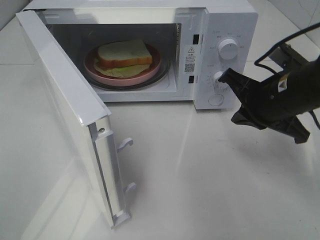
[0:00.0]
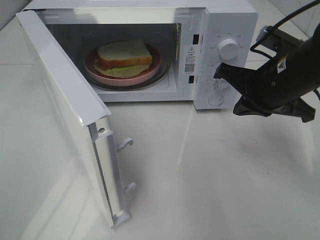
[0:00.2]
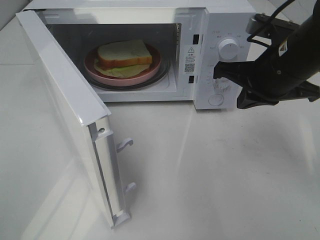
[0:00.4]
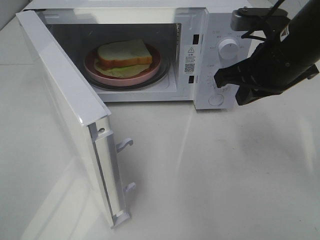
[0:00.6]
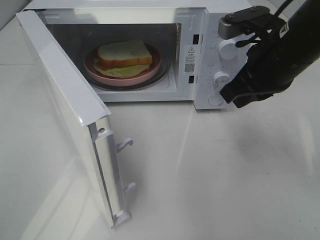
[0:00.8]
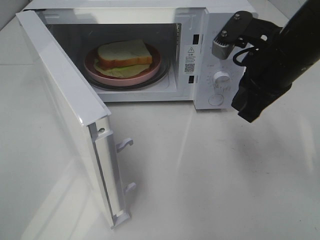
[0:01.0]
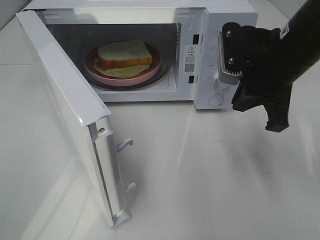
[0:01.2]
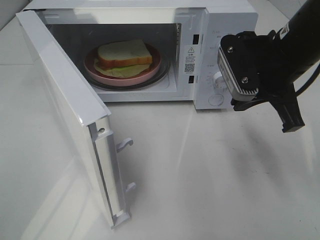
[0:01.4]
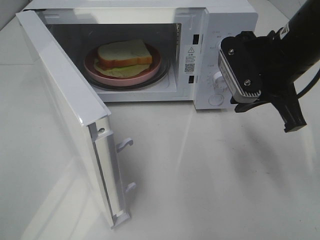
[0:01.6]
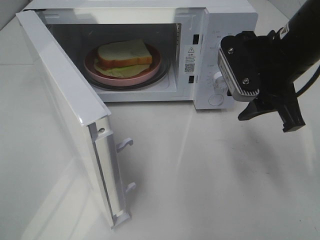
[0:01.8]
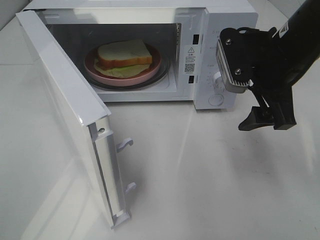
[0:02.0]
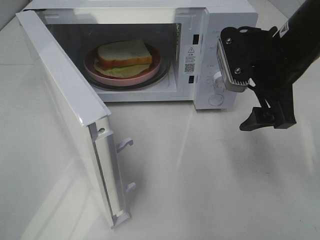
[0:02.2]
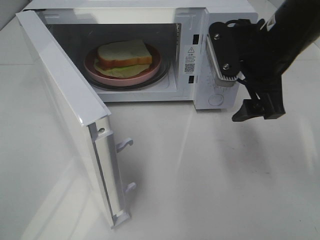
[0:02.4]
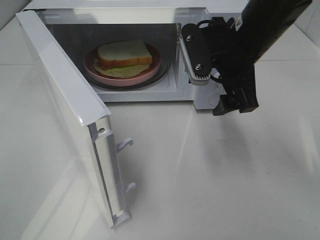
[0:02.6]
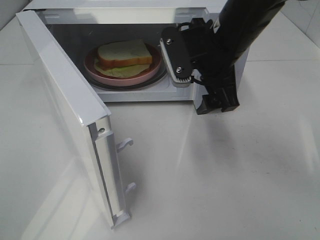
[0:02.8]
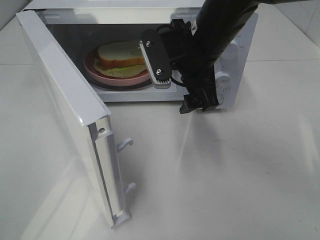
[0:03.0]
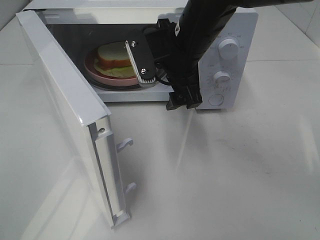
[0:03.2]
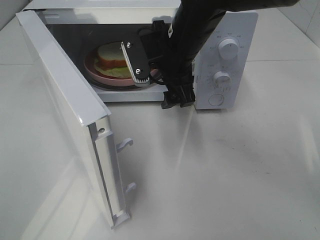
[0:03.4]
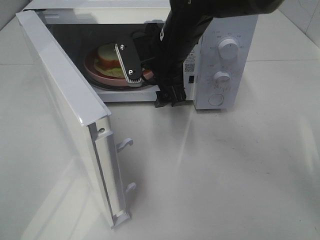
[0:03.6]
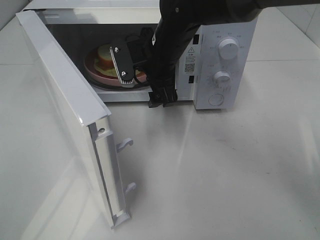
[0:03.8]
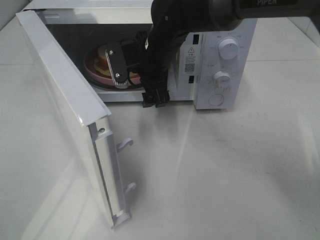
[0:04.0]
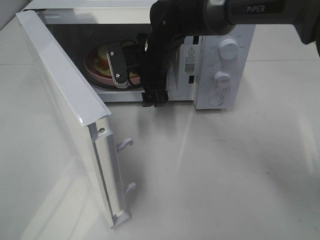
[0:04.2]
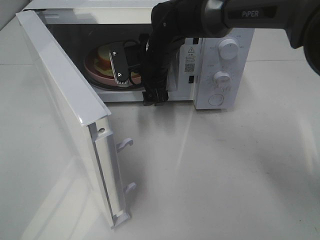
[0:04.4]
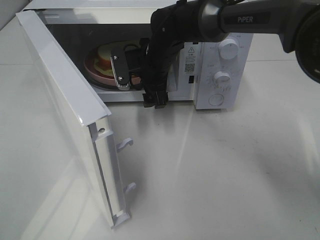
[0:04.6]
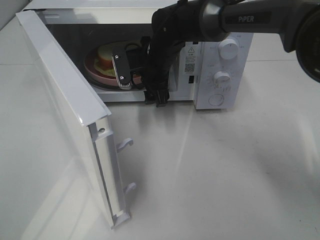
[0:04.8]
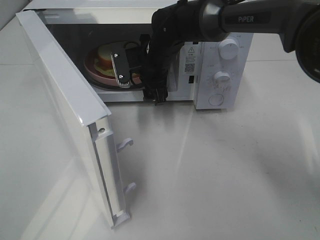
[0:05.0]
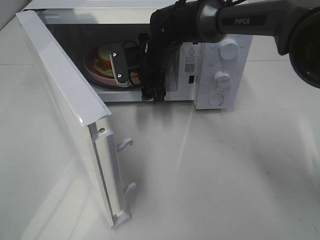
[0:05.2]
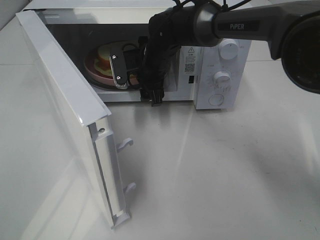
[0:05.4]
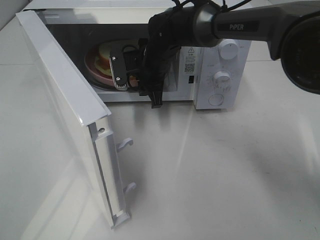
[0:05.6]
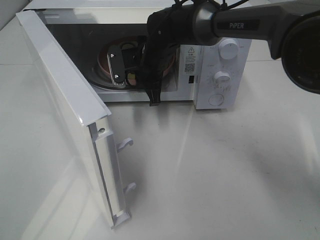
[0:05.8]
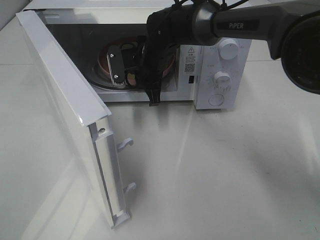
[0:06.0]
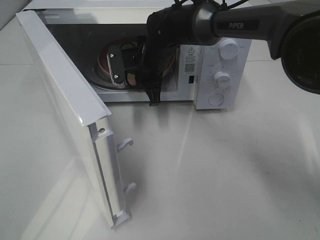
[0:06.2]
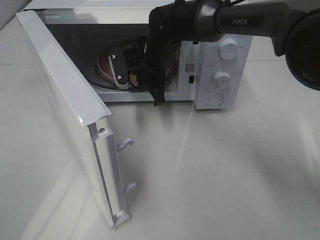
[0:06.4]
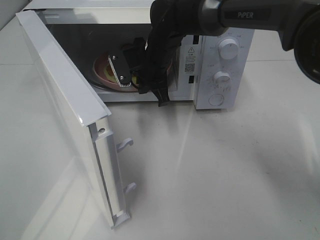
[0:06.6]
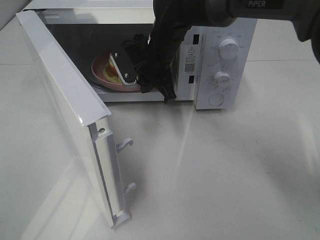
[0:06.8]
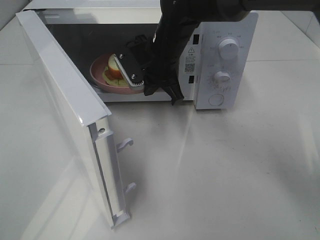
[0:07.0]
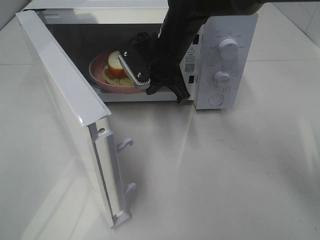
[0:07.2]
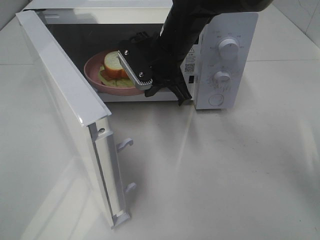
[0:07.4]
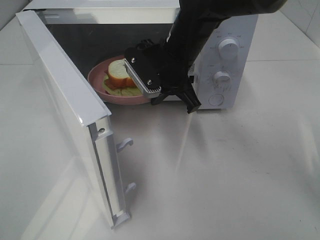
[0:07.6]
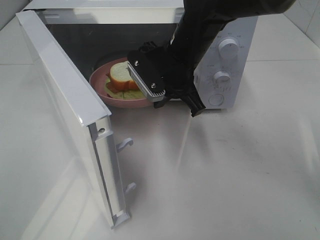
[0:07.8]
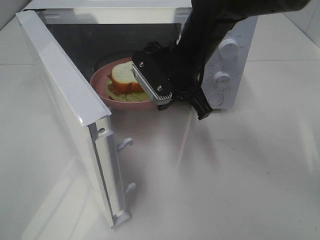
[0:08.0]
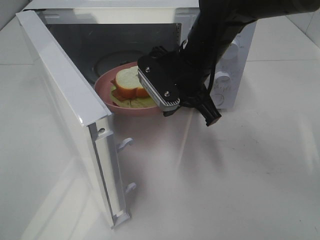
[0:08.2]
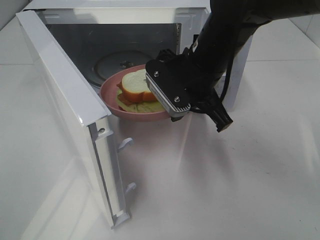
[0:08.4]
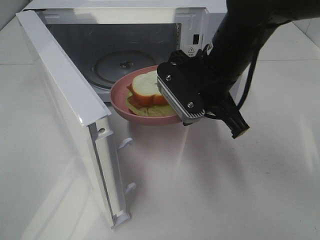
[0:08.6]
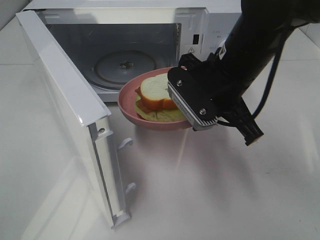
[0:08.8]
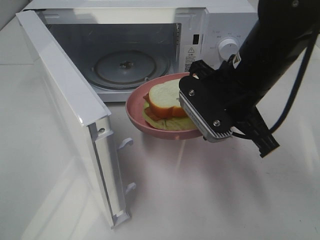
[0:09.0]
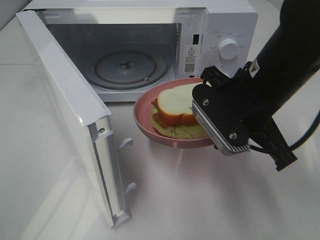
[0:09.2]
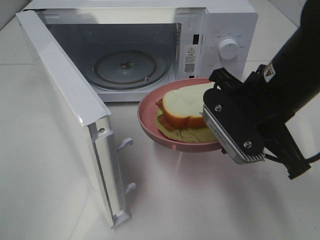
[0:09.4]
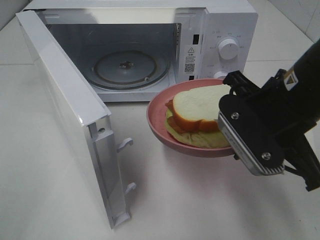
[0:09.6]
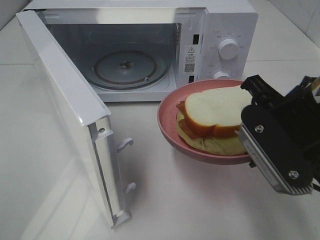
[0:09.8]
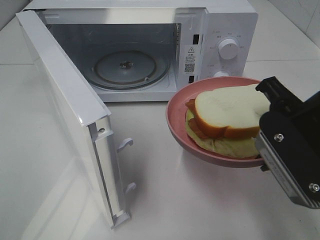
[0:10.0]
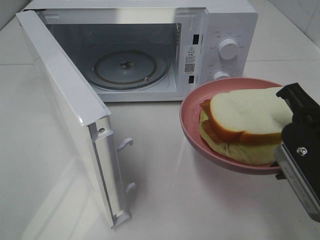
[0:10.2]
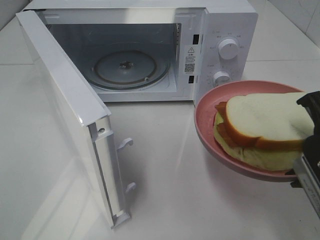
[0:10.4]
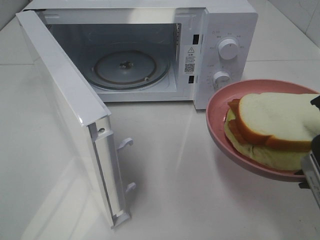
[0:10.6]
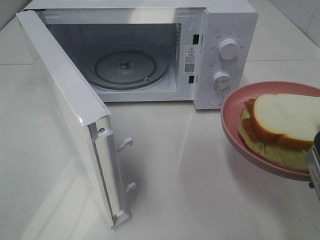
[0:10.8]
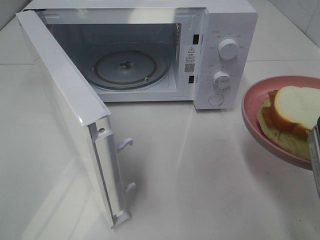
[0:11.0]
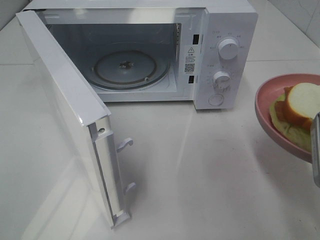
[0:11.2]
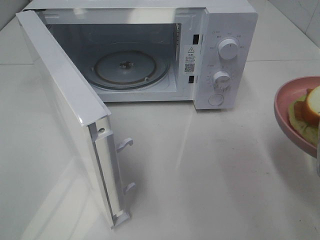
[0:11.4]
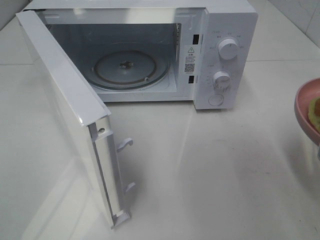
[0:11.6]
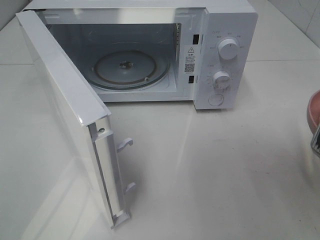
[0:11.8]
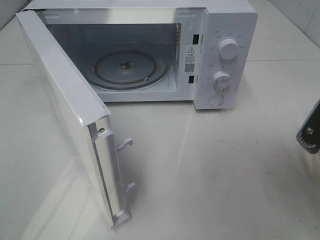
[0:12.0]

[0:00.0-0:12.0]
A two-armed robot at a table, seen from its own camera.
Task of the whole recording: Heat Sandwich.
Step, 0:00.0 to 0:05.8: Right hand: grab the plate with the sandwich.
0:00.0 to 0:01.6: The right gripper moves upward, roughly 5 cm.
0:01.6 to 0:03.0: The right gripper moves to the left, approximately 10 cm, and opens.
0:03.0 to 0:04.4: The right gripper heads forward, downward and to the left, covering some 15 cm.
0:04.4 to 0:06.0: The right gripper closes its fingers.
0:06.0 to 0:07.6: The right gripper moves backward and upward, some 10 cm.
0:07.6 to 0:09.0: The right gripper heads backward and to the right, covering roughly 15 cm.
0:09.0 to 0:10.4: The right gripper goes about 15 cm backward and to the right.

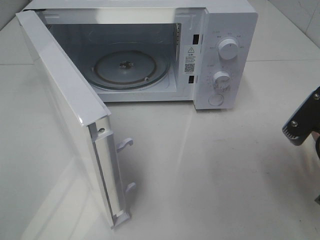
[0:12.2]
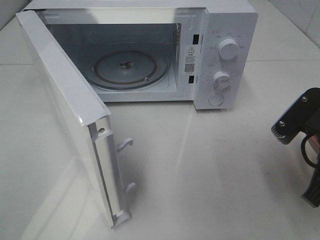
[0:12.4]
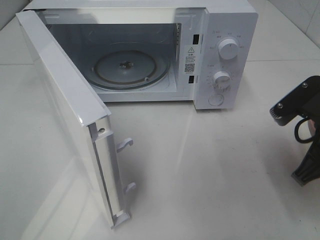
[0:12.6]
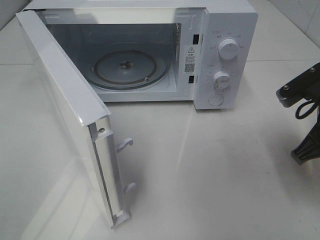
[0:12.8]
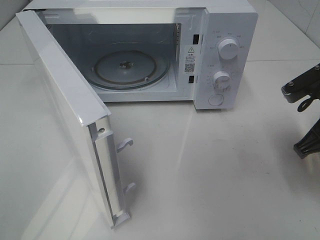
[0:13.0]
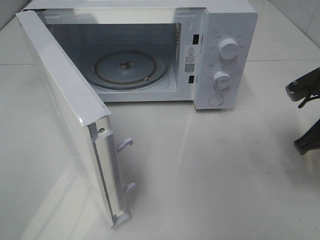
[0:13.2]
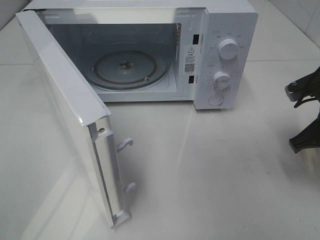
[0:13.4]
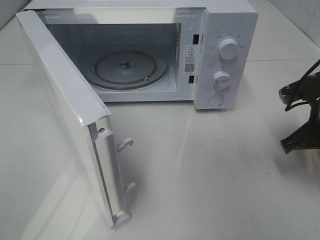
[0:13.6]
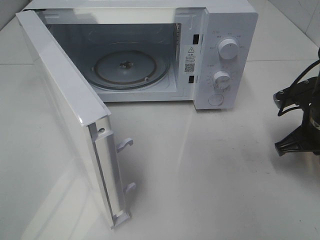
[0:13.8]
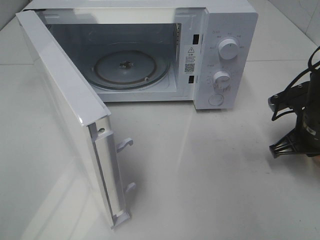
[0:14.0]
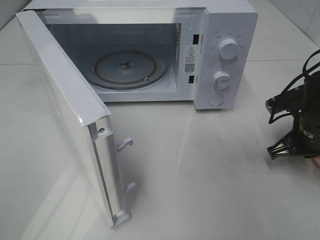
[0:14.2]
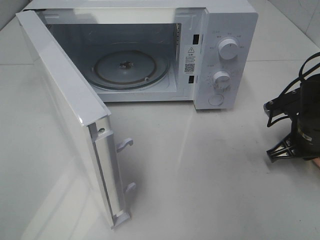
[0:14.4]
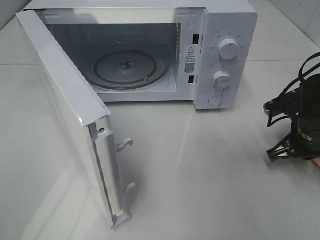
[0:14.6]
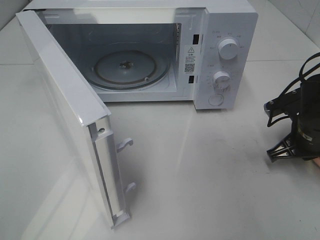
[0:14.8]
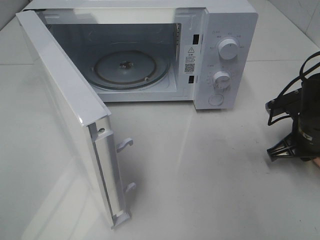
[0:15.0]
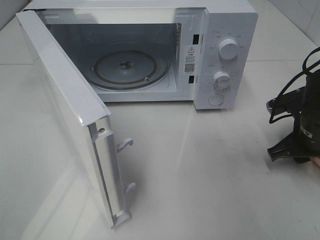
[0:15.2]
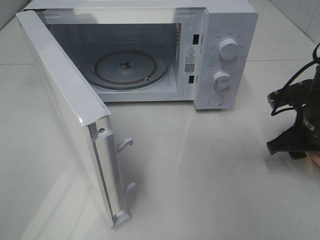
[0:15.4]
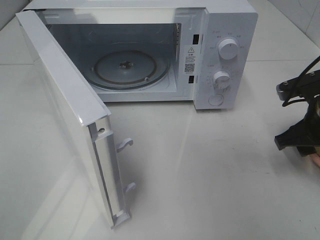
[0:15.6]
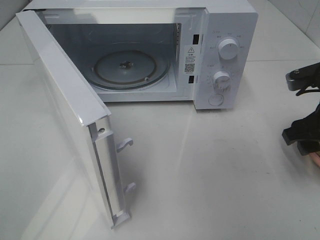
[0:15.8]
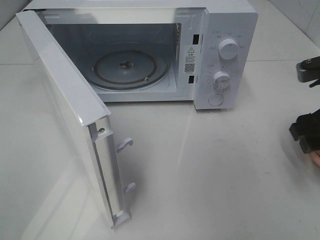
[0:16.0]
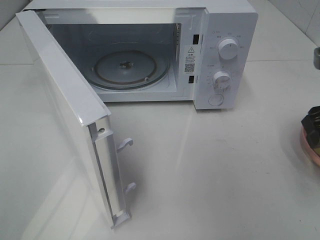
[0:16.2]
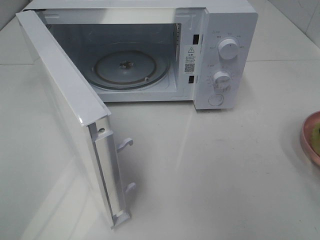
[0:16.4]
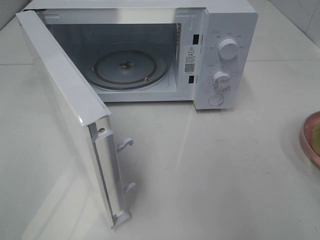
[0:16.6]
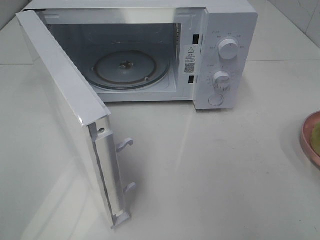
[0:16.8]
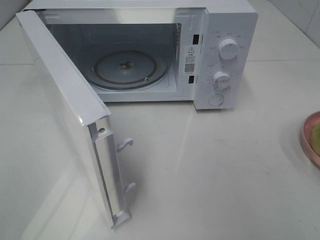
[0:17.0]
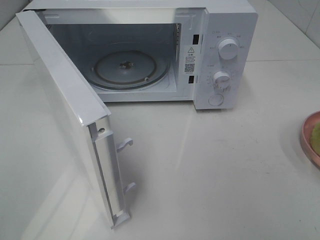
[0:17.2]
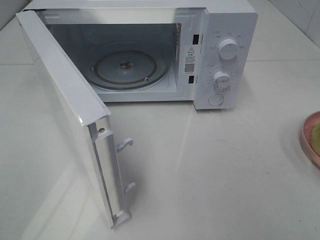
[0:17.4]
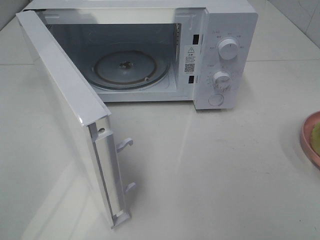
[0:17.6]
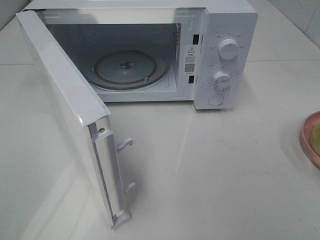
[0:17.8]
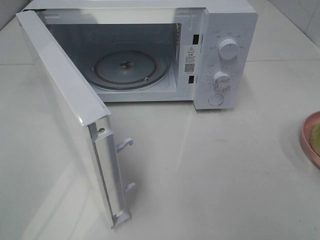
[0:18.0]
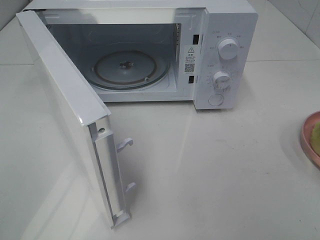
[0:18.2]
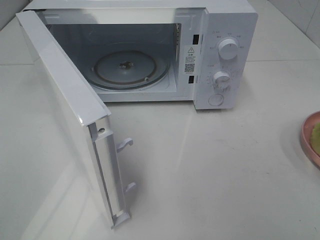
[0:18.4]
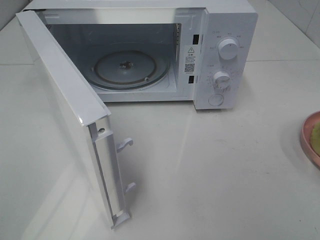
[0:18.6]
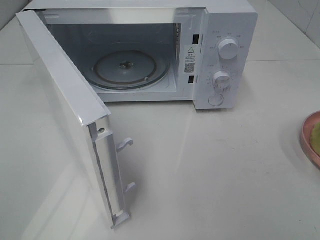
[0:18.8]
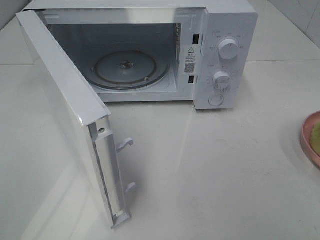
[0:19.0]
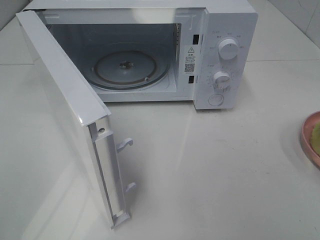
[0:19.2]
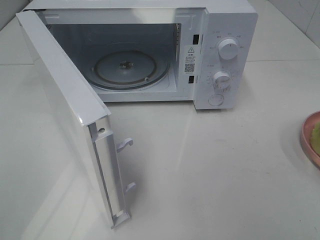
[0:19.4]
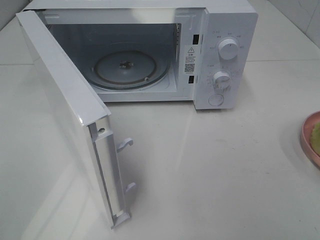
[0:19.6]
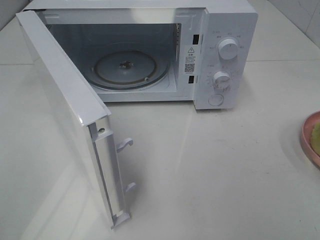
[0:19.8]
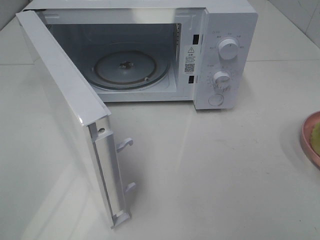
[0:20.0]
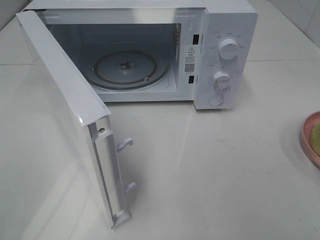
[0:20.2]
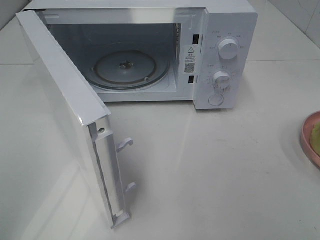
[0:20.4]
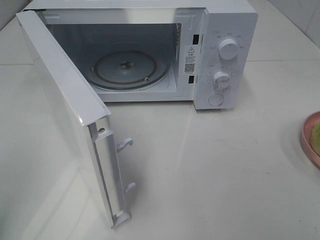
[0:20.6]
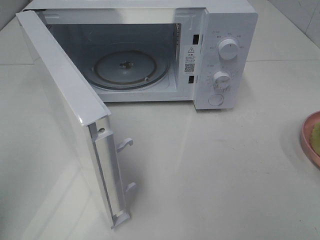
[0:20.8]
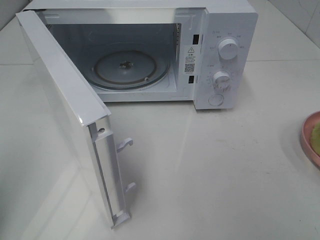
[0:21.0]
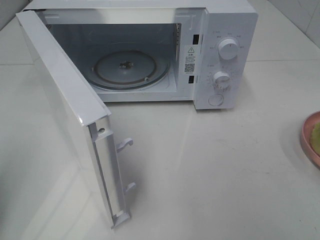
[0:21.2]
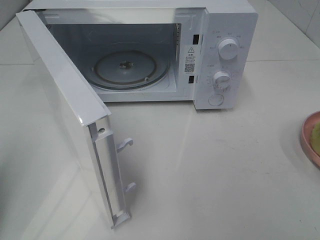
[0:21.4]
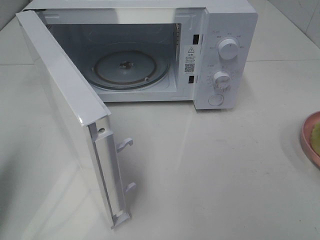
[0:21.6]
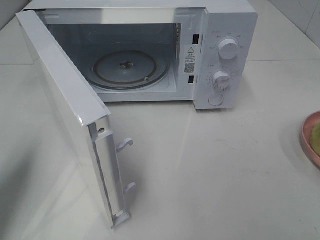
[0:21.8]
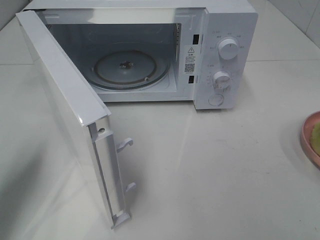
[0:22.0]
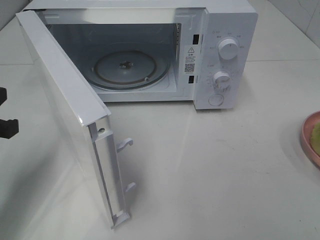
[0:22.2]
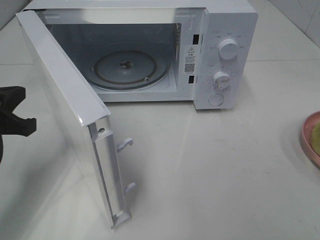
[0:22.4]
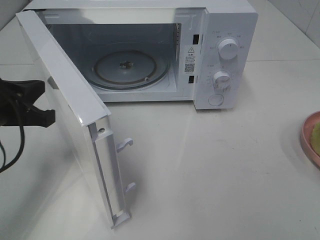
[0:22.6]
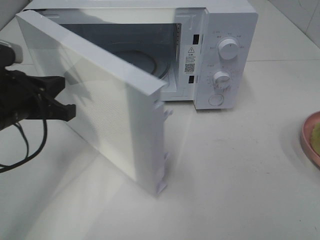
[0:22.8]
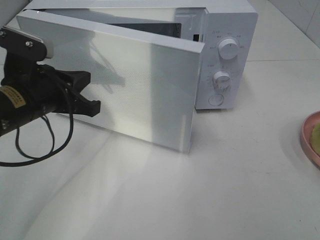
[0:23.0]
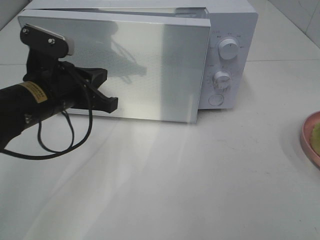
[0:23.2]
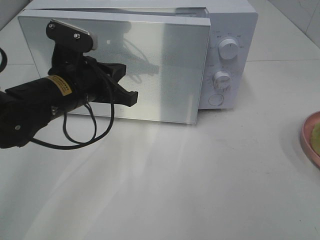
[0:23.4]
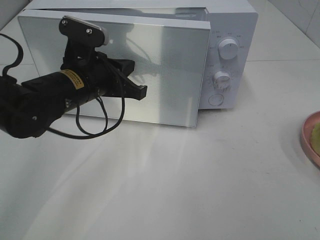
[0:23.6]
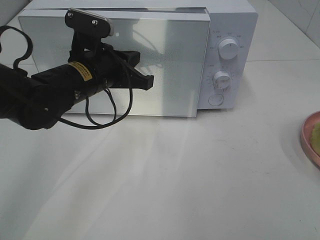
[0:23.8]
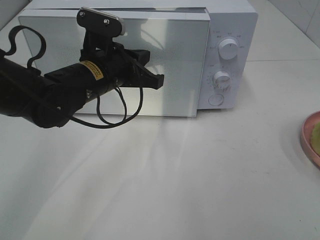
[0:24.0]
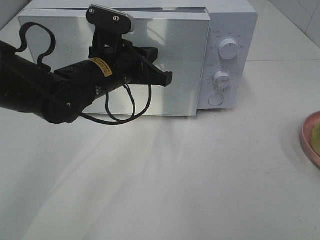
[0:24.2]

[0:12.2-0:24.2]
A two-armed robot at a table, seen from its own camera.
Task of the whole recording: Heat Sandwich.
Step, 0:12.2 to 0:15.2: Right hand: place the plate on the table.
0:12.2 to 0:13.8: The right gripper shifts roughly 15 cm forward and downward.
0:13.8 to 0:15.2: The right gripper opens up.
0:15.2 to 0:16.6: The right gripper is displaced upward and backward by about 25 cm.
0:18.2 to 0:19.8: Neither gripper changes place.
0:19.8 to 0:21.2: The left gripper is displaced forward by approximately 10 cm, and closes its fingers.
0:21.2 to 0:22.6: The left gripper moves forward, to the right and downward, some 15 cm.
0:22.6 to 0:24.2: The left gripper shifts some 20 cm to the right and forward.
